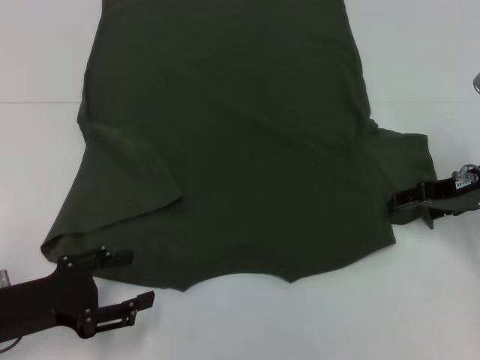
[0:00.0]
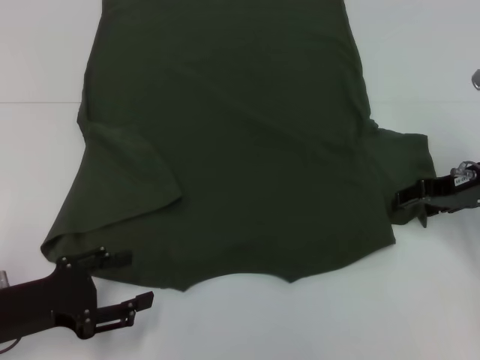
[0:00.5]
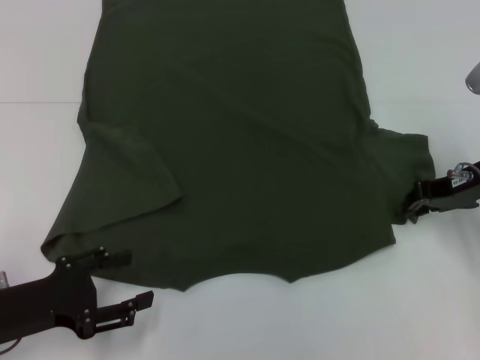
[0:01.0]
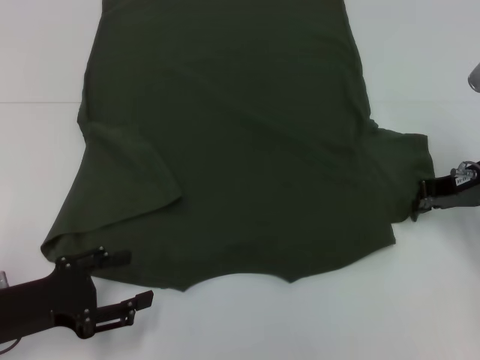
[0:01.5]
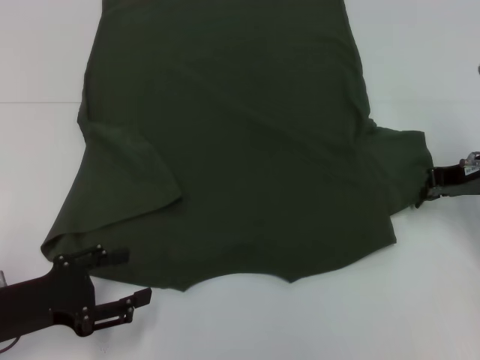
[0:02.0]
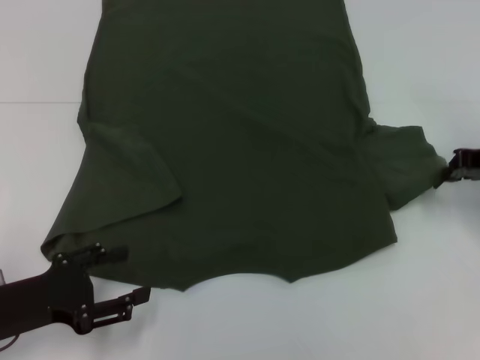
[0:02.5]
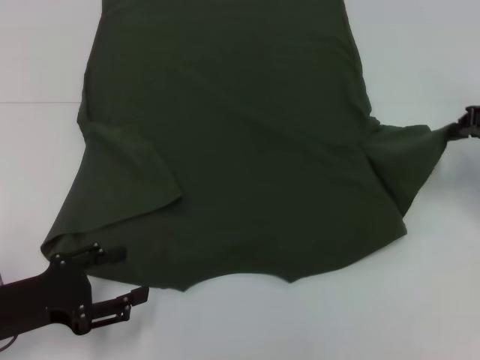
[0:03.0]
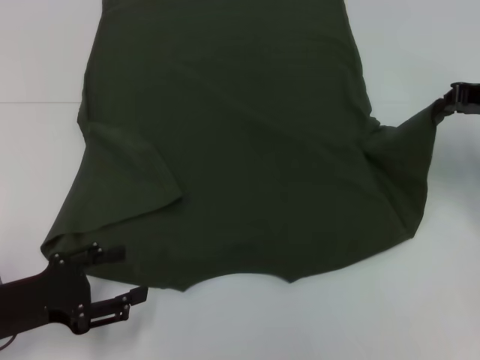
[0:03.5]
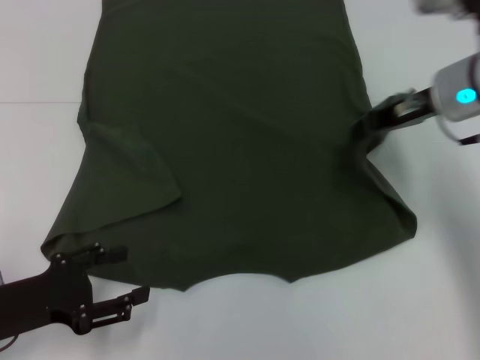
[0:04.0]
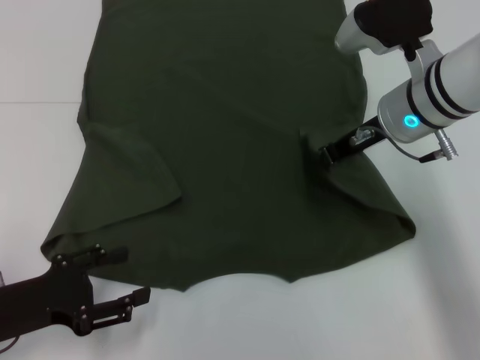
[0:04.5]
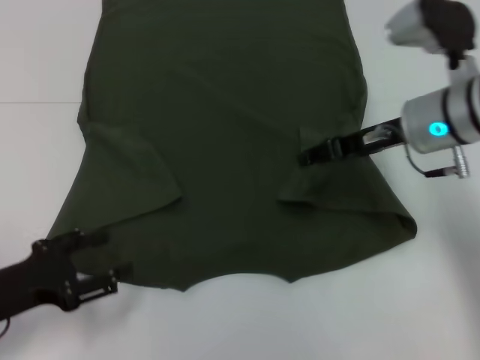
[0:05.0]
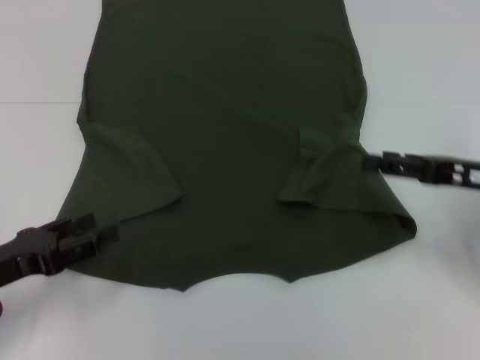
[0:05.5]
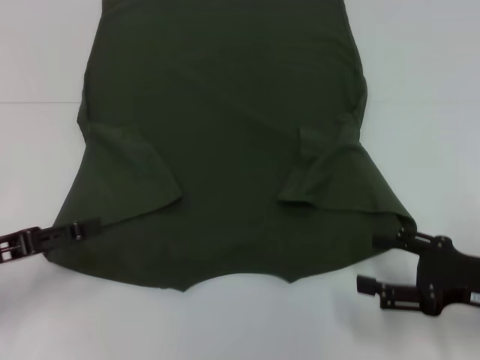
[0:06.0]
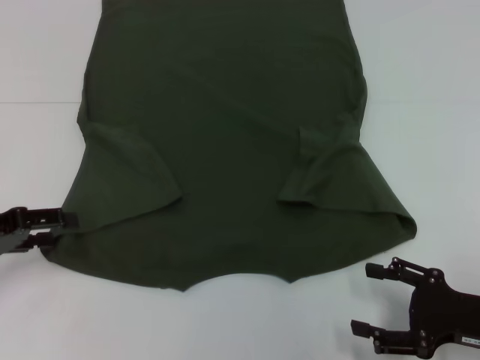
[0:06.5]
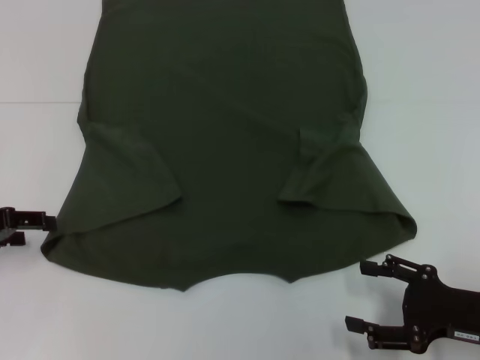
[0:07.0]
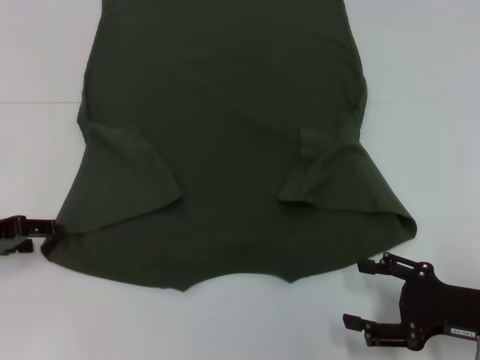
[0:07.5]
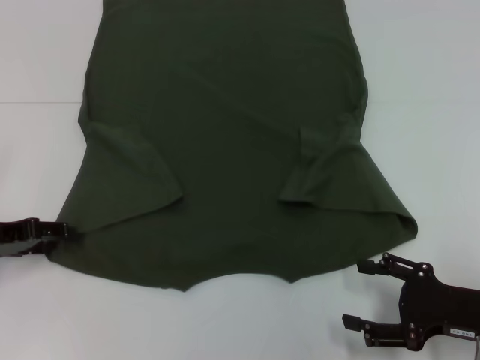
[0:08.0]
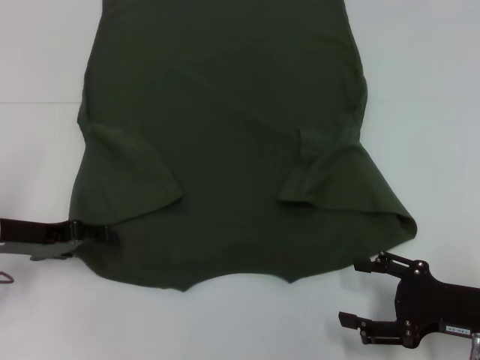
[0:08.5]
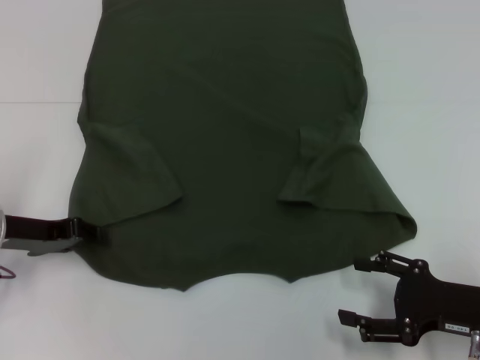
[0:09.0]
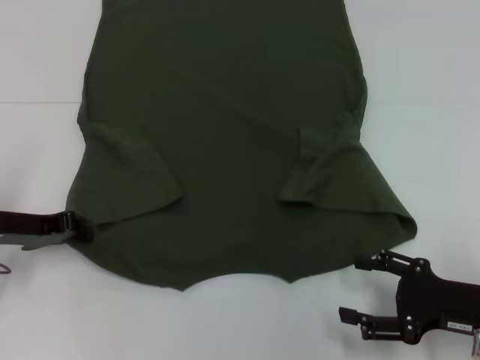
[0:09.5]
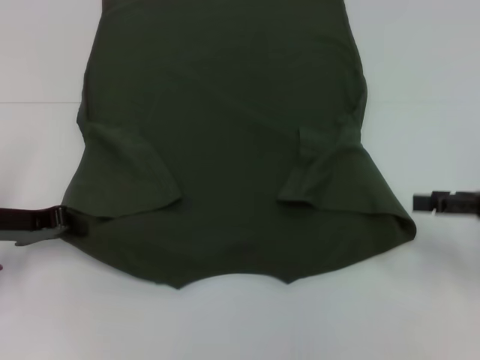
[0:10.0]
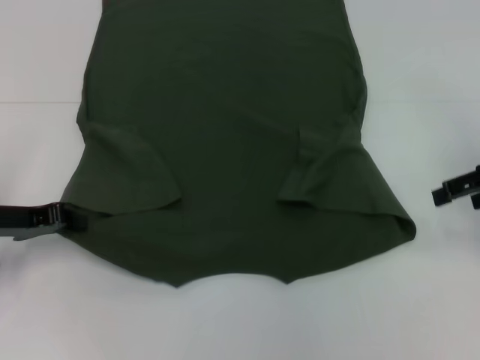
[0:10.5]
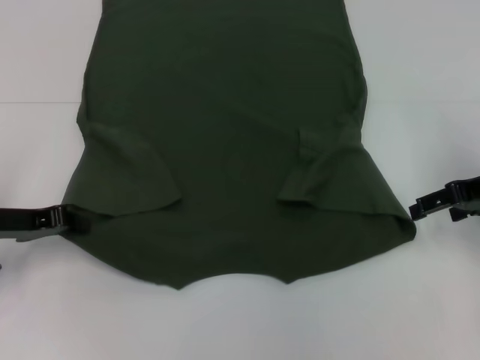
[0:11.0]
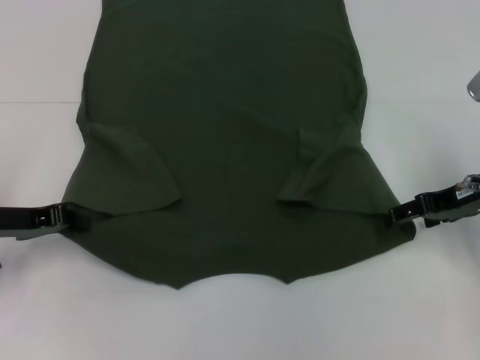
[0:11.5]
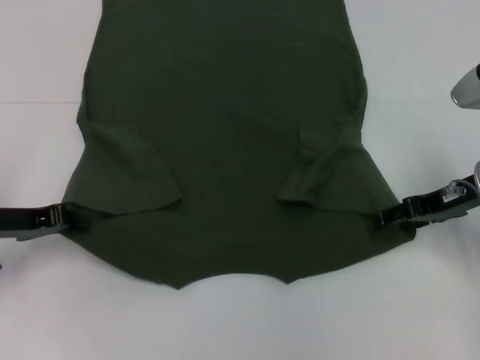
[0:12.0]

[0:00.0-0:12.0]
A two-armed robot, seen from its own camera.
Step, 0.0 to 5.0 s: Fold the bottom right sleeve with your right hand.
Step, 5.5 to 9.0 s: Grab the bottom left corner with your left hand.
0.0 to 2.0 s: The right gripper closes.
2.0 to 4.0 s: The right gripper goes some 10 cm to the left and upward.
4.0 to 6.0 s: The left gripper changes place by about 5 cm. Meanwhile the right gripper is displaced backward, downward and to the right by roughly 20 cm, and opens its fingers.
6.0 to 8.0 s: The left gripper travels forward by about 5 cm.
8.0 to 10.0 s: The right gripper heads upward, forward and to the right, covering roughly 15 cm, while the left gripper closes.
10.0 to 12.0 s: The right gripper is displaced forward and to the left by about 10 cm.

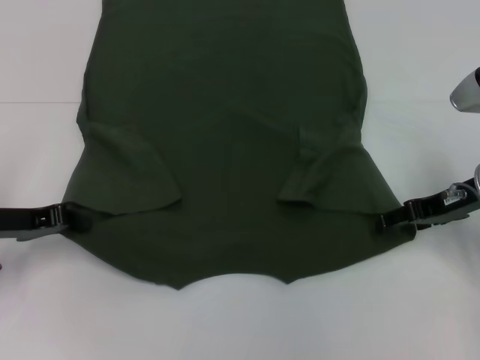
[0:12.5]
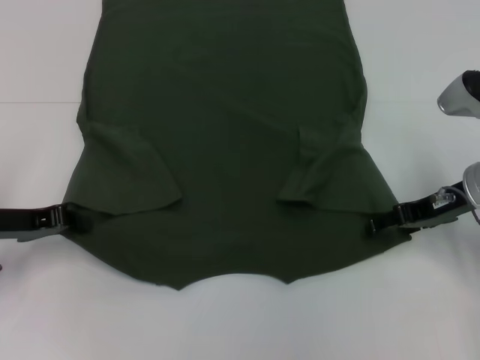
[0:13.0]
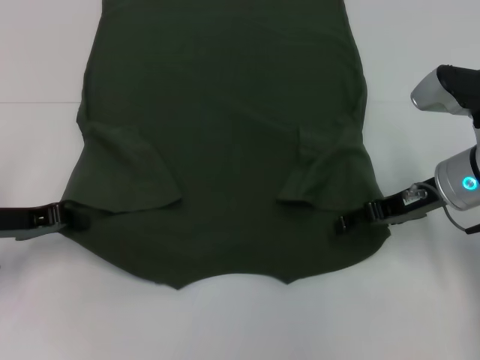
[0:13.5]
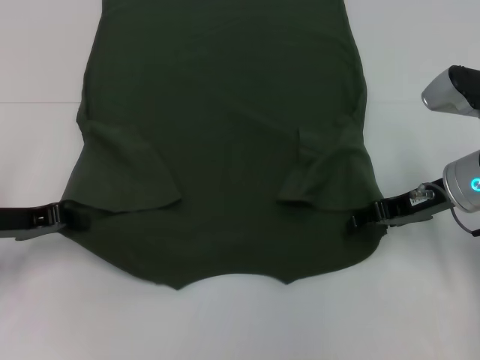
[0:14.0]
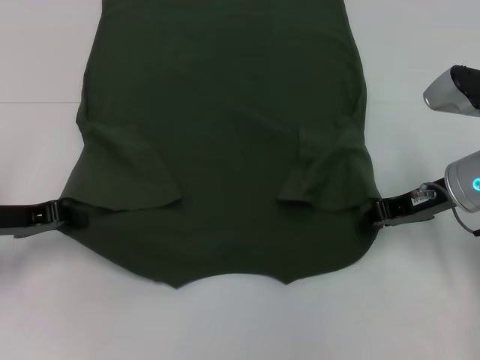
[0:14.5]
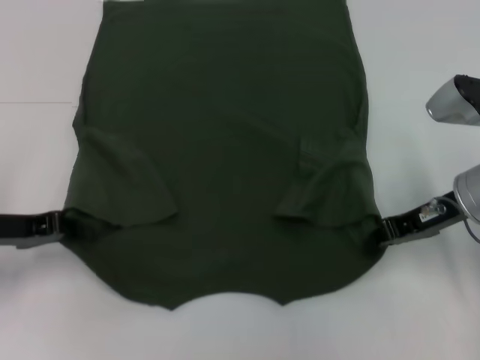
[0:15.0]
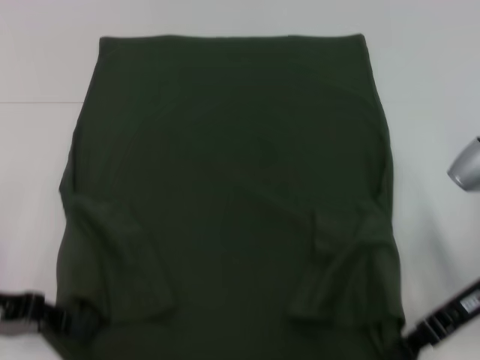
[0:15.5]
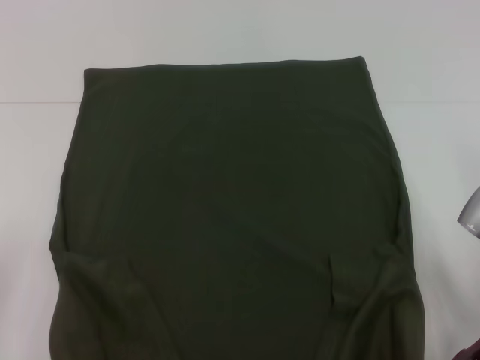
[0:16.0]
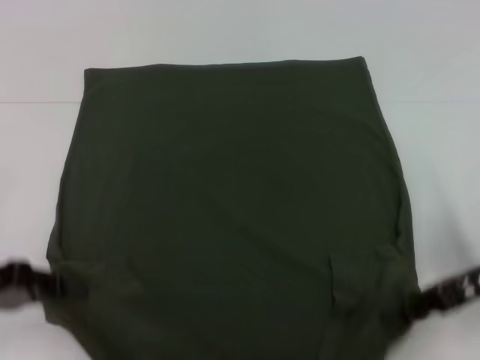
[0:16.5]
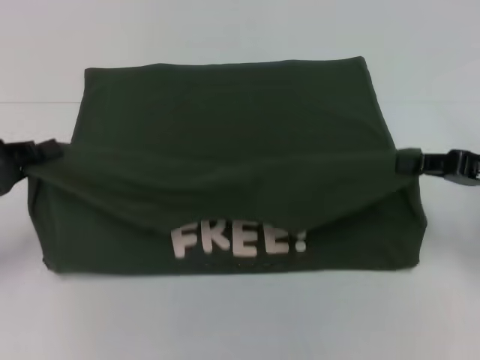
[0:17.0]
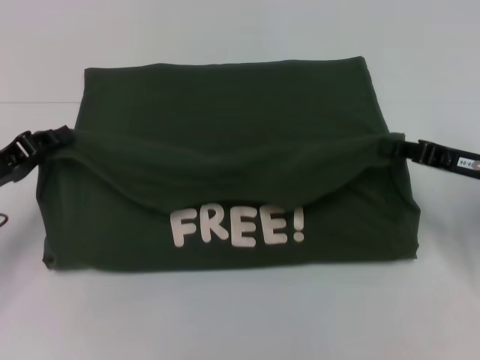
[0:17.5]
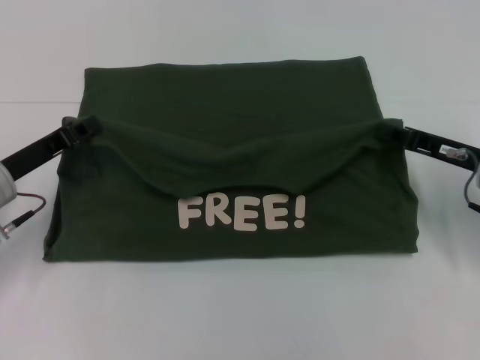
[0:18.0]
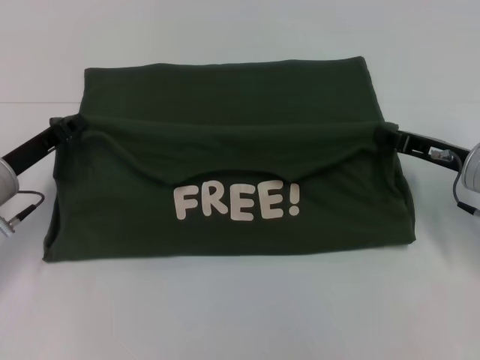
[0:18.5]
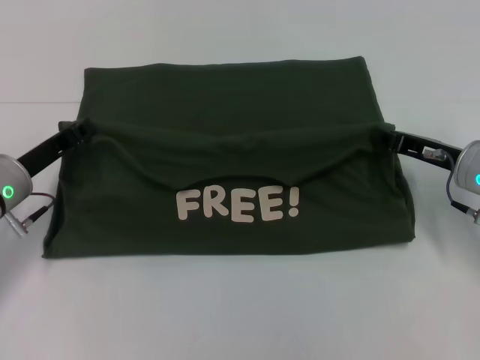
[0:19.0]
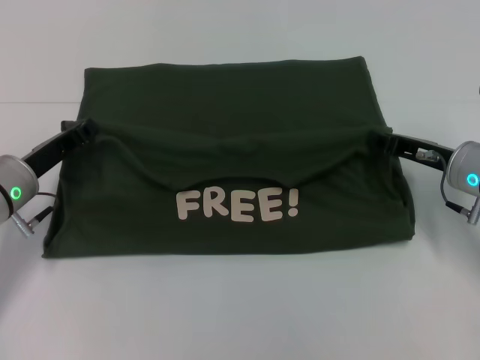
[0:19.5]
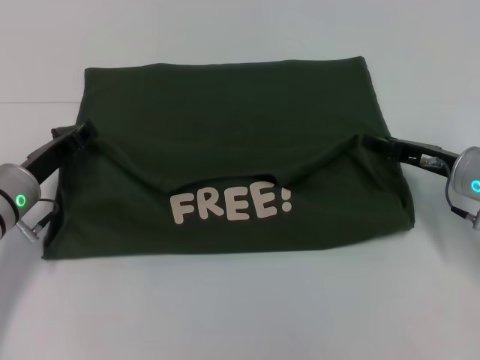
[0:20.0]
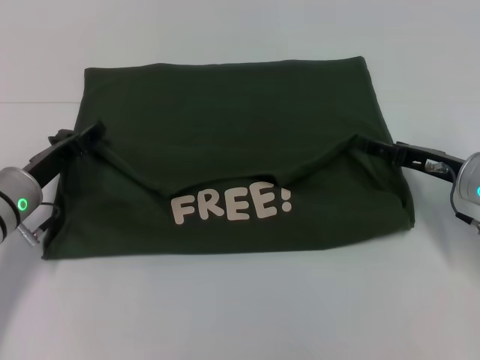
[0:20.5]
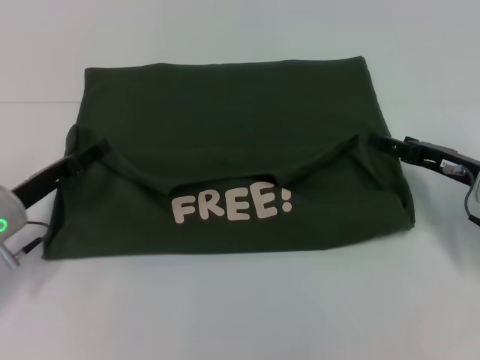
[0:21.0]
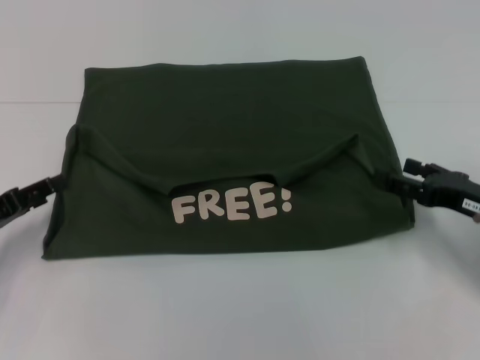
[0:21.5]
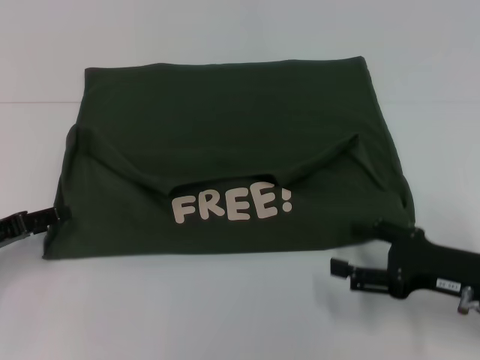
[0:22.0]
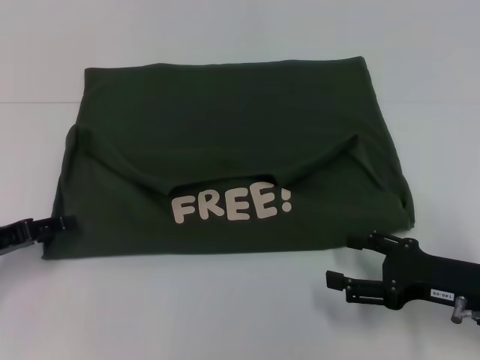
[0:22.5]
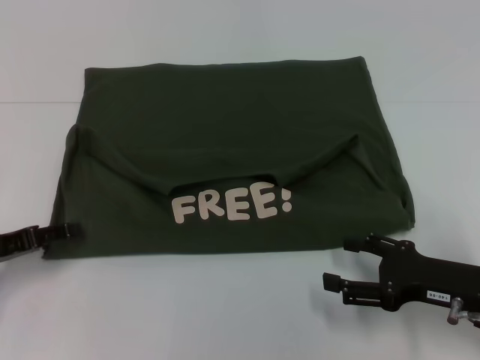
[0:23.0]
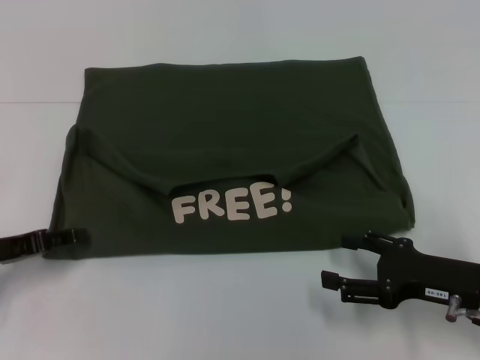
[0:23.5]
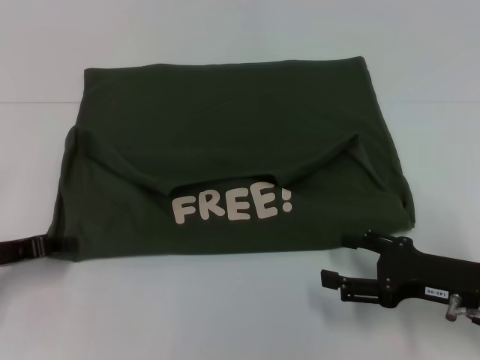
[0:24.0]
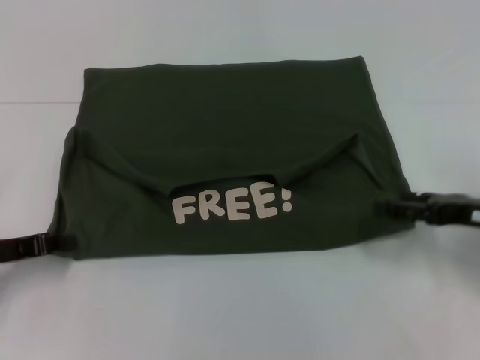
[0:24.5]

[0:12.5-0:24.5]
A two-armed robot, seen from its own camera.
Step, 12.5 to 14.5 s: Grab the bottom right corner with your right hand.
Step, 15.0 to 21.0 s: Fold the clothes with your left hand.
Step, 15.0 to 21.0 s: Fold the clothes with your right hand.
12.5 to 14.5 s: The right gripper closes its fingers.
14.5 to 16.5 s: Both grippers move backward, about 10 cm.
16.5 to 18.5 s: The right gripper travels forward and downward by roughly 10 cm, while the left gripper goes some 10 cm forward and to the right.
18.5 to 20.5 s: The left gripper opens its fingers; the right gripper opens.
20.5 to 22.5 s: The left gripper travels to the left and backward by approximately 10 cm; the right gripper is displaced backward by some 10 cm.
22.5 to 24.5 s: The right gripper is displaced forward by about 5 cm. The left gripper closes its fingers.

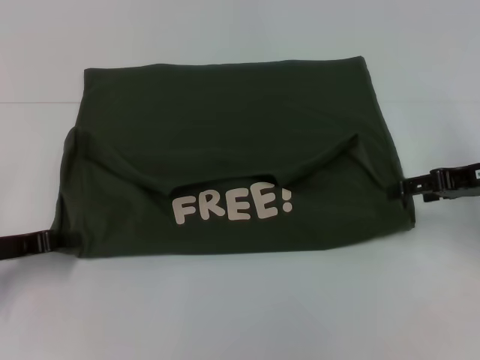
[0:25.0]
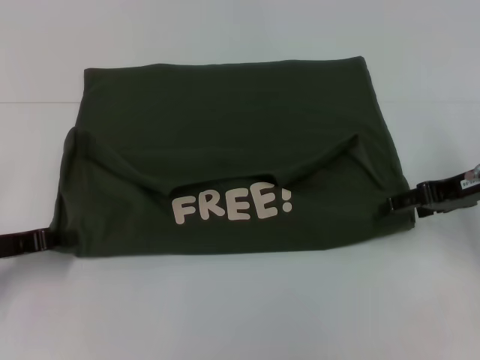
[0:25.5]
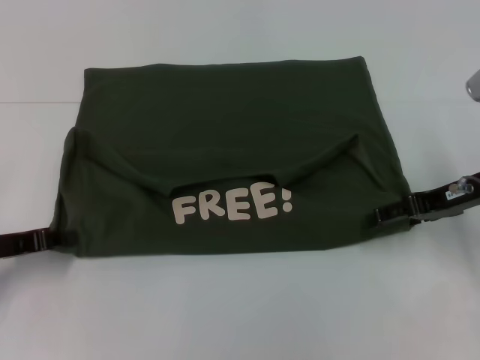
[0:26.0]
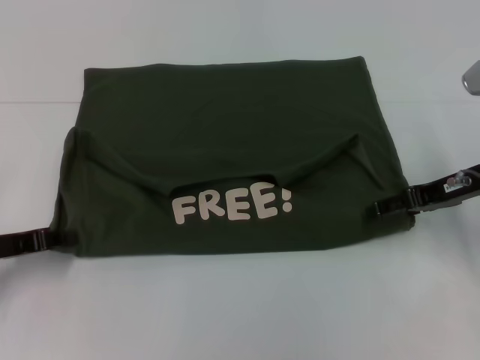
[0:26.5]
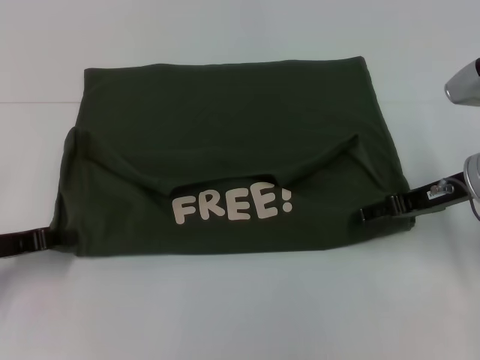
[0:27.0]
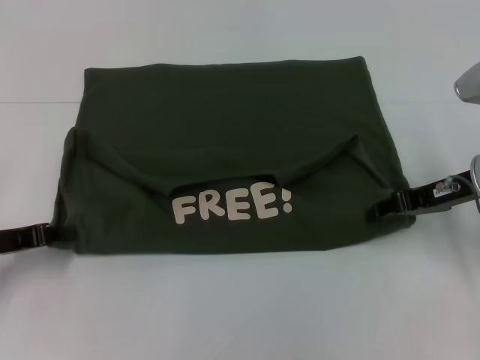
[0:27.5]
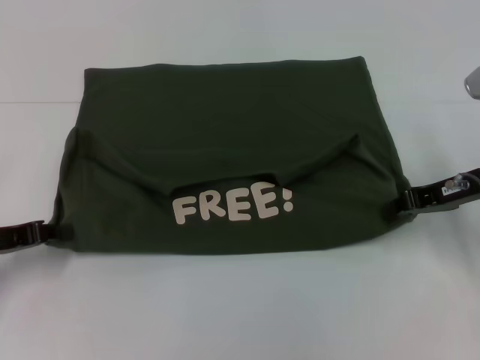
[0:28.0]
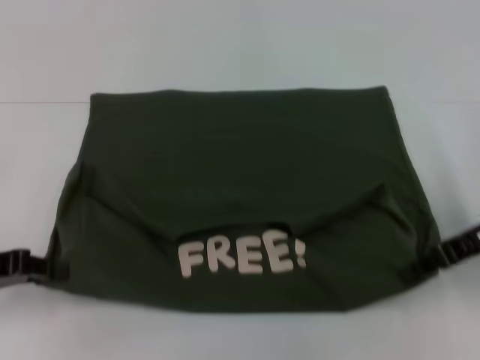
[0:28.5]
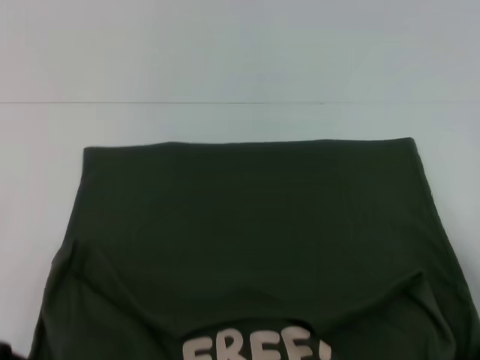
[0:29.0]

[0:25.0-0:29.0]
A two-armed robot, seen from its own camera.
Step, 25.0 to 29.0 s: Pull the clothes with your left hand.
Step, 25.0 to 29.0 s: Pull the clothes with your right hand.
25.0 to 27.0 s: The right gripper moves about 5 cm.
27.0 to 29.0 s: The left gripper heads backward, covering roughly 5 cm. Meanwhile the right gripper shifts some 10 cm backward, and closes its fingers.
